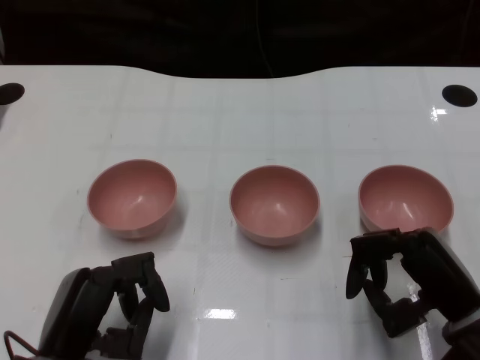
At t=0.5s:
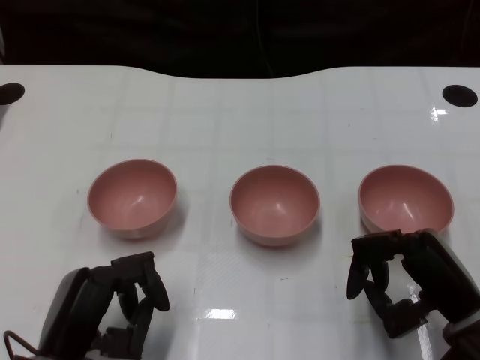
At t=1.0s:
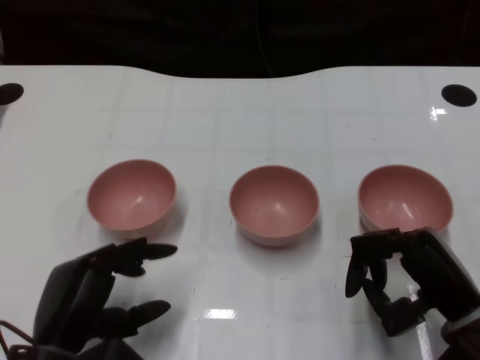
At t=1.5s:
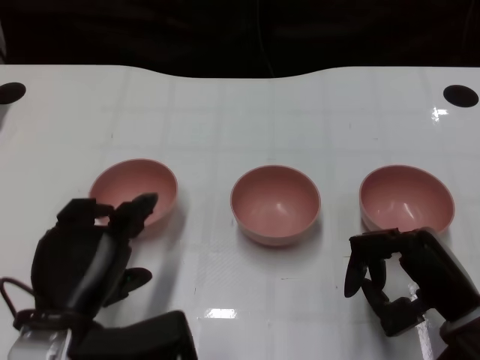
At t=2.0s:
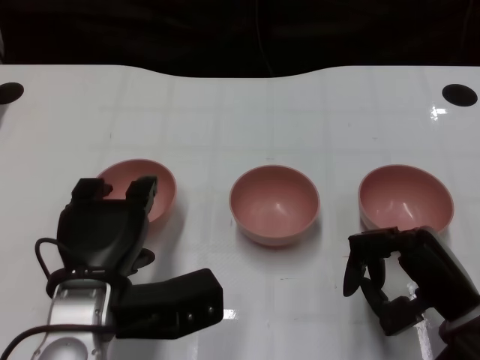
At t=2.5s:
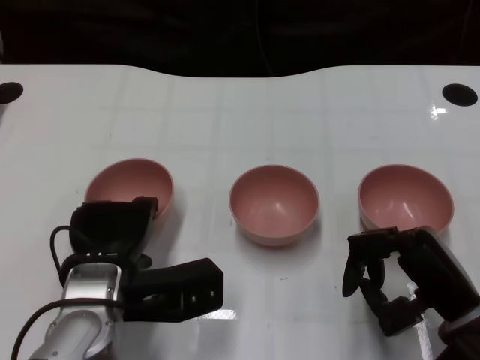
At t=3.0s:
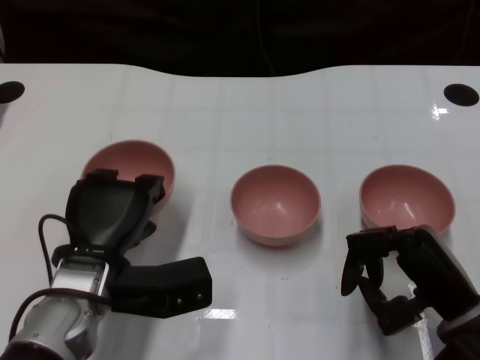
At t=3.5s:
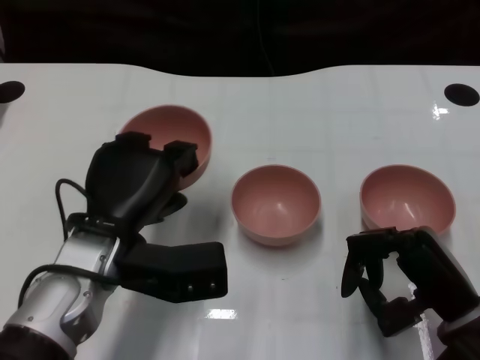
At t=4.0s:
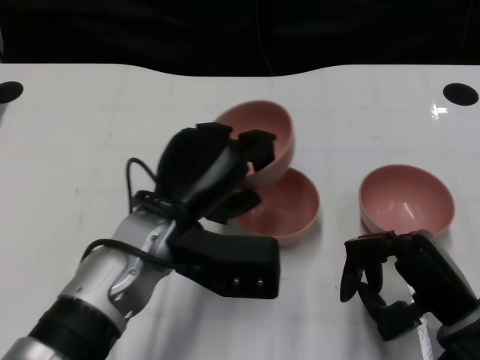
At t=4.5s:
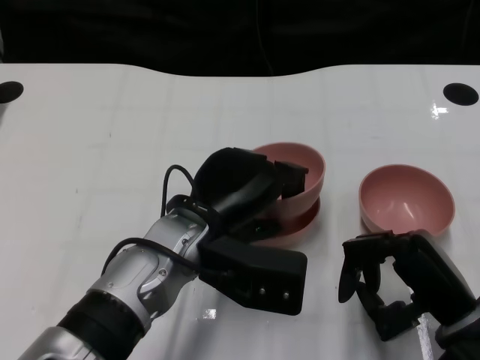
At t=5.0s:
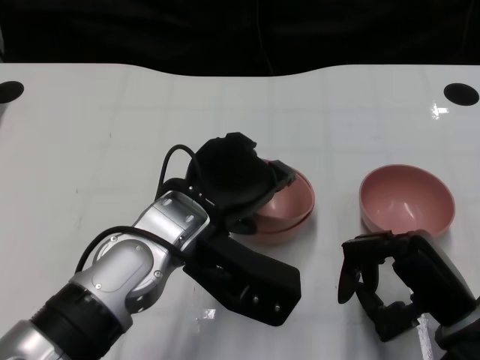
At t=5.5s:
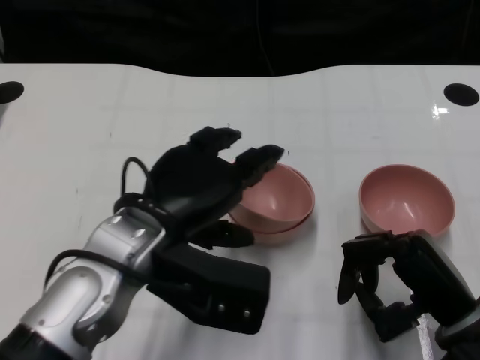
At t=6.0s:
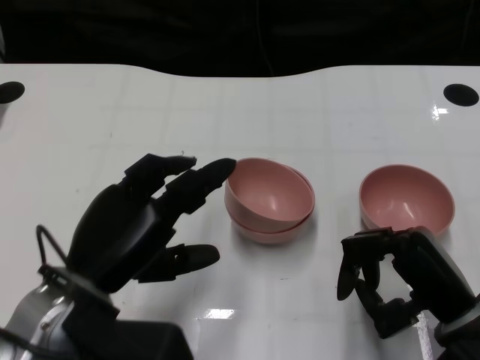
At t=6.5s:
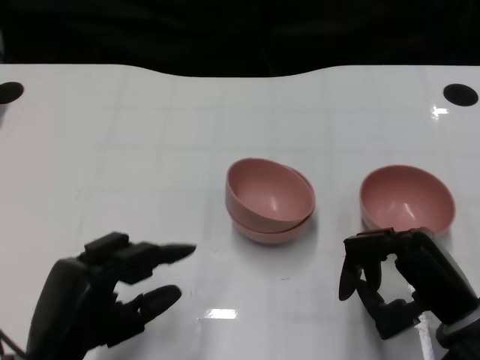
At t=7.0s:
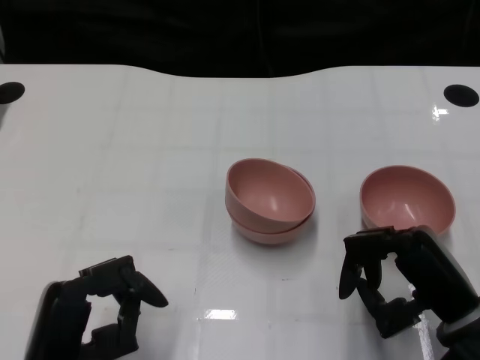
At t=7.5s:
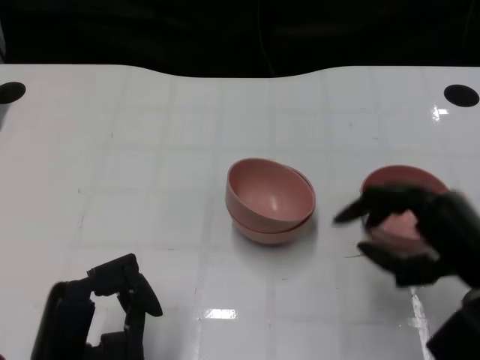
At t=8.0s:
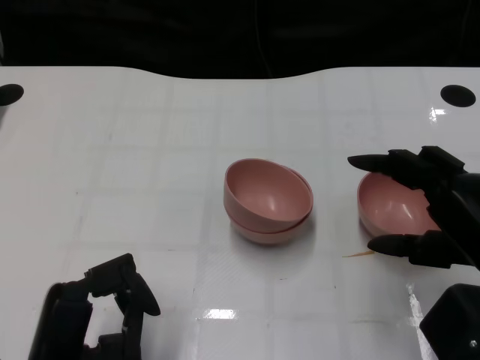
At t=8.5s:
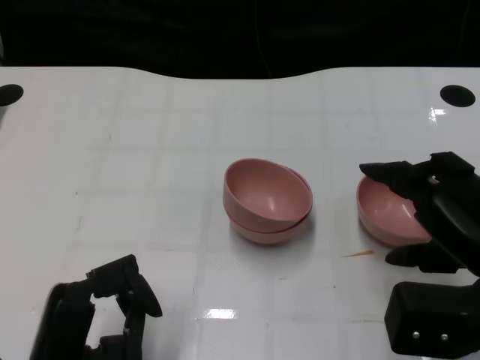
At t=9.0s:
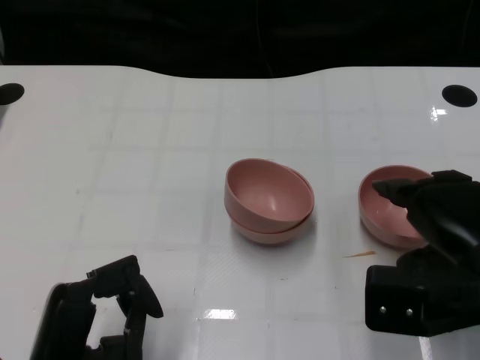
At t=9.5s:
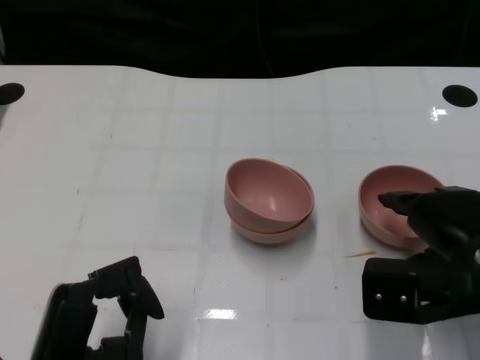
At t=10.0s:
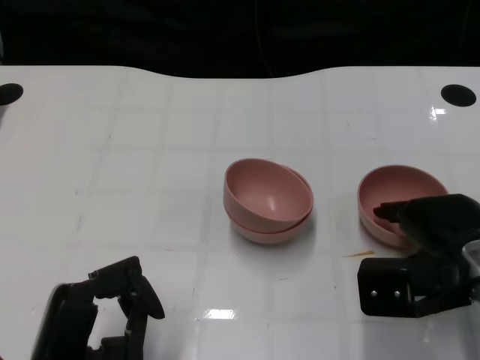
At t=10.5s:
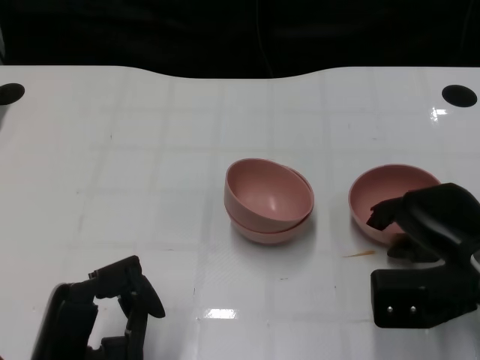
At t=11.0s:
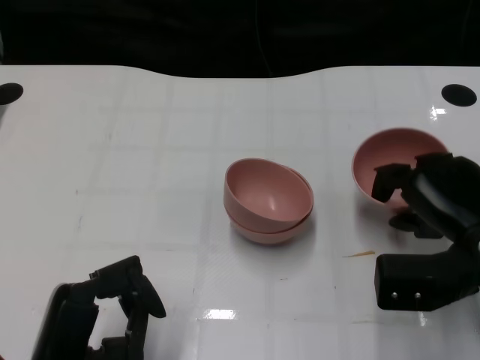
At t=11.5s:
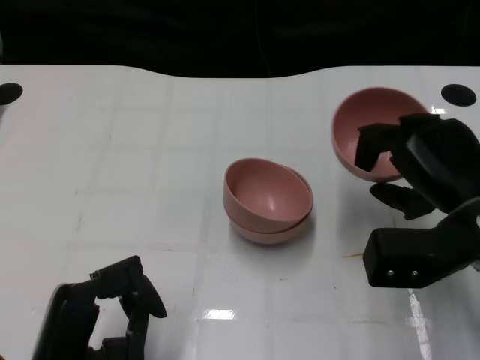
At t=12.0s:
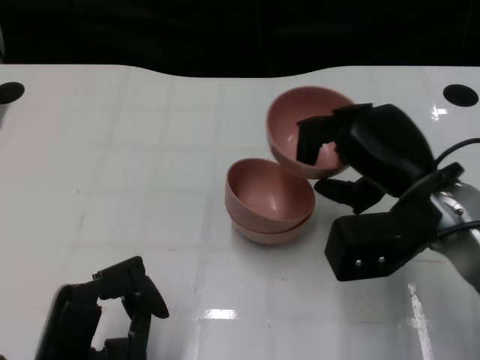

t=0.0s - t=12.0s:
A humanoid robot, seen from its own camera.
Task of the whole recording: Pick up the bowl on one side of the table and place it on top of the middle bowl, then pick up the bowl on the other side of the table and place it on top of the middle bowls.
Step, t=1.0s - t=2.5s: Grasp the bowl on the left with the left gripper.
Step, t=3.0s - t=5.5s: Place the bowl on the left onto the bowl in the middle with left gripper.
Step, t=6.0s - t=10.5s: Grasp the bowl on the right with the right gripper.
t=2.0s - t=4.0s: The left hand heads to the right and forward, covering about 10 cm.
t=4.0s - t=6.0s: The left hand heads to the left and backward, covering approximately 10 cm.
t=6.0s - t=8.0s: The left hand travels downward and backward by roughly 10 cm; the right hand goes some 5 cm upward.
t=8.0s - t=10.0s: The right hand travels forward by approximately 5 cm.
t=10.0s - t=12.0s: The right hand shifts by some 5 cm.

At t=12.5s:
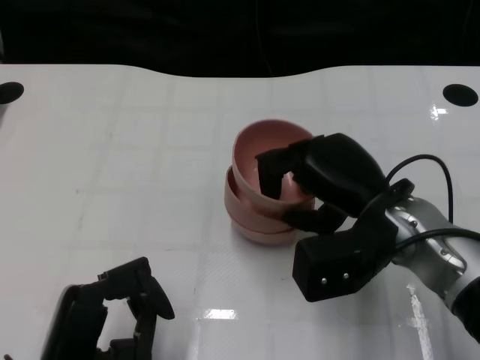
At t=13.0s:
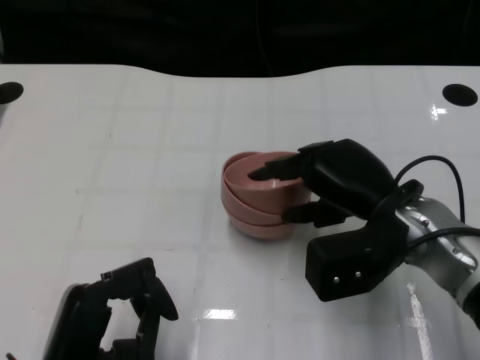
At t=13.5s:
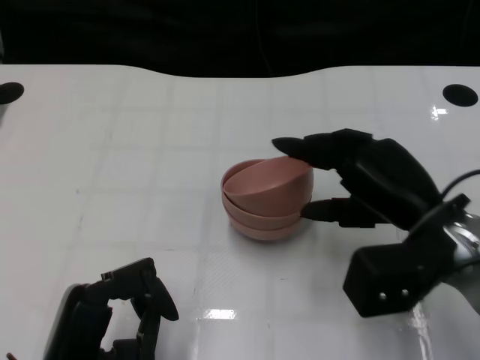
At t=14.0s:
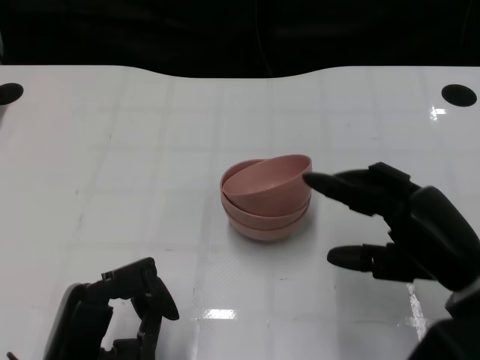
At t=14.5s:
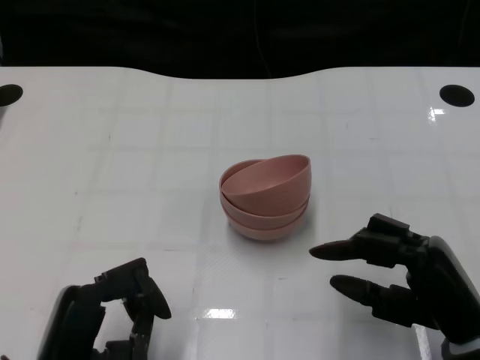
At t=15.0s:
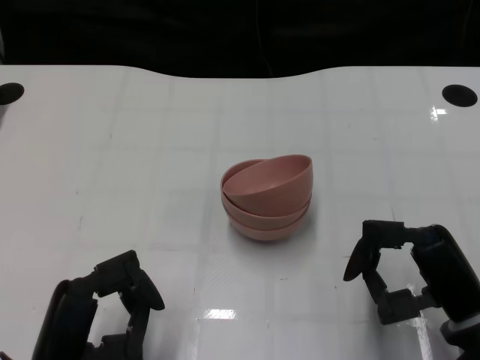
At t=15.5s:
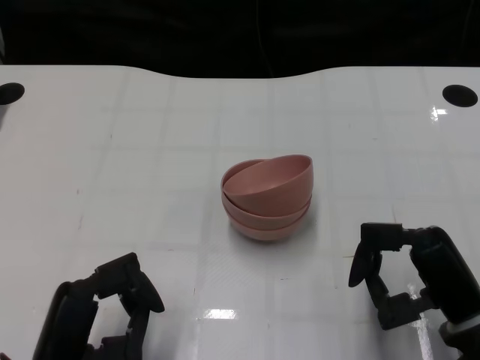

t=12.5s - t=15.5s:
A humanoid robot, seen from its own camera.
Task of the whole recording: Pick up the bowl on one side of the table and place it on top of the middle bowl, then pick up the bowl on the other side of the table and place it on top of the middle bowls.
t=12.5s - t=14.0s: The right hand goes some 10 cm to the right and backward.
t=14.0s - t=15.5s: The right hand goes roughly 5 cm downward.

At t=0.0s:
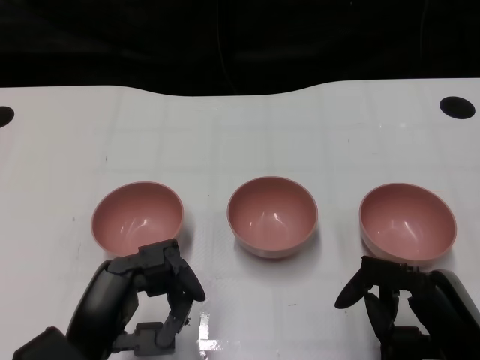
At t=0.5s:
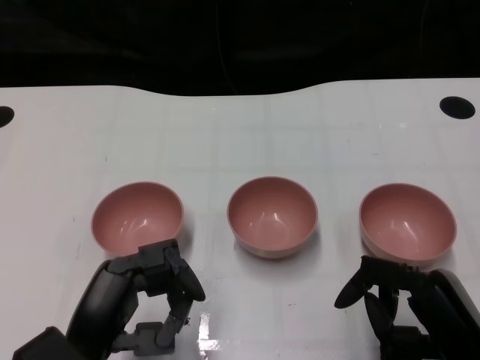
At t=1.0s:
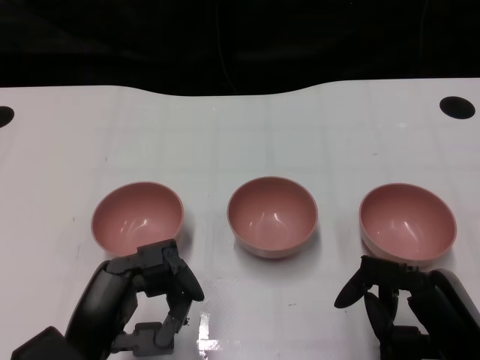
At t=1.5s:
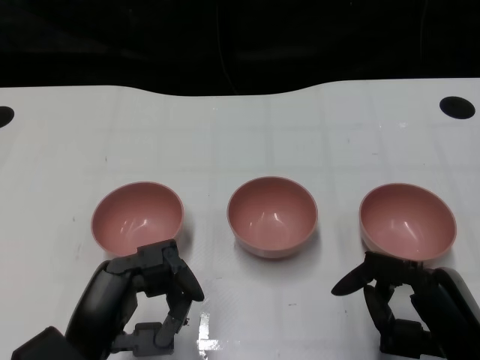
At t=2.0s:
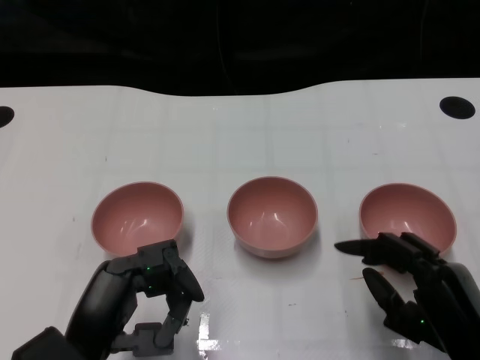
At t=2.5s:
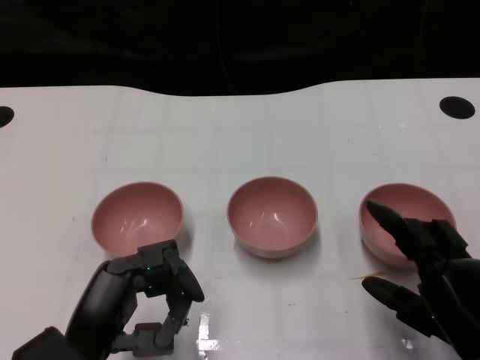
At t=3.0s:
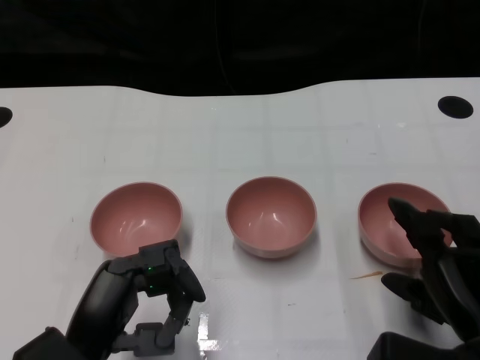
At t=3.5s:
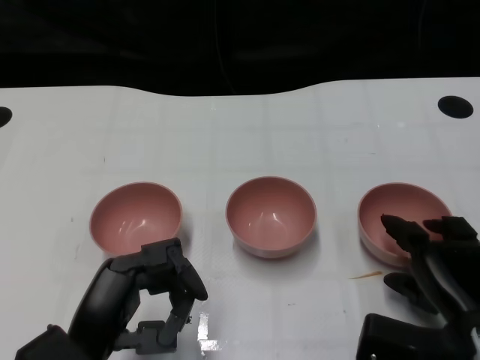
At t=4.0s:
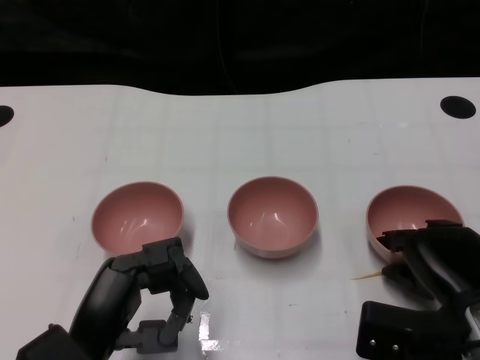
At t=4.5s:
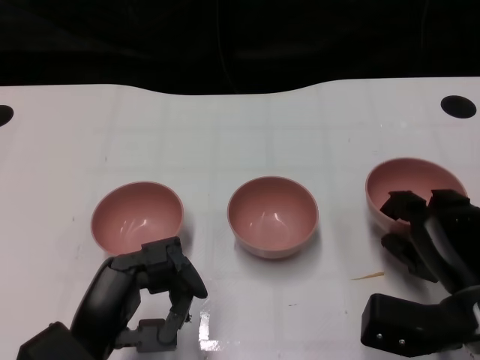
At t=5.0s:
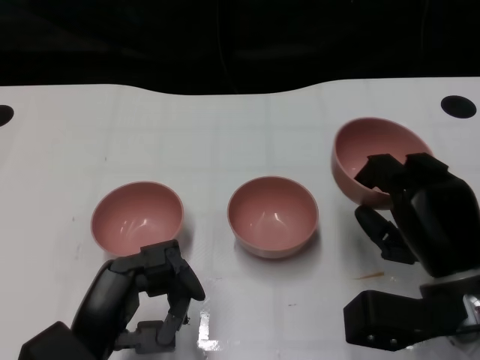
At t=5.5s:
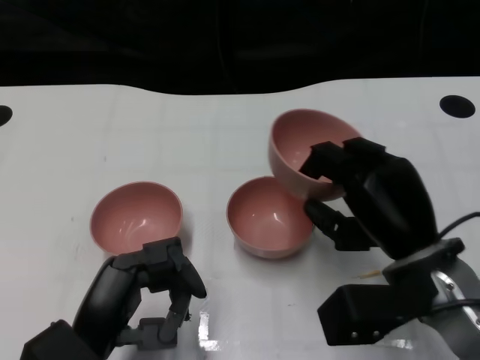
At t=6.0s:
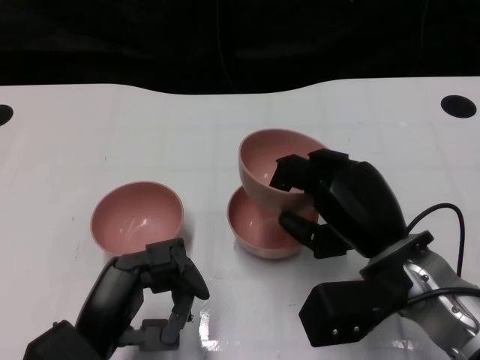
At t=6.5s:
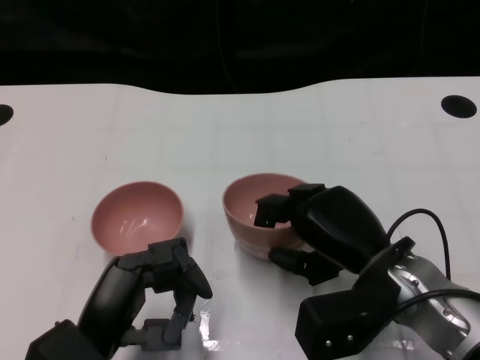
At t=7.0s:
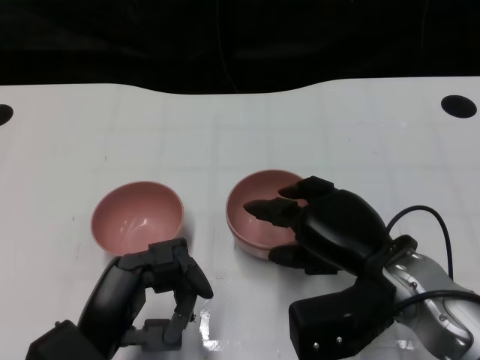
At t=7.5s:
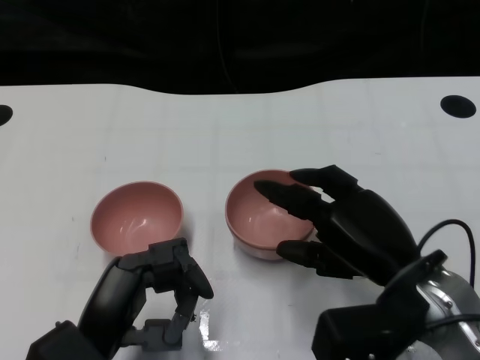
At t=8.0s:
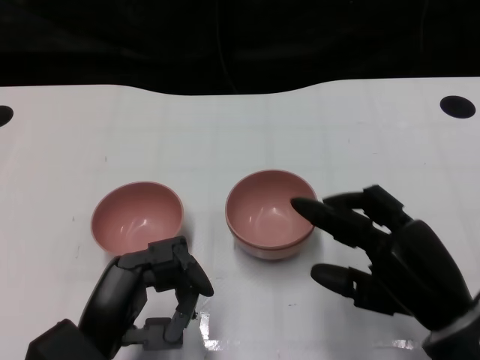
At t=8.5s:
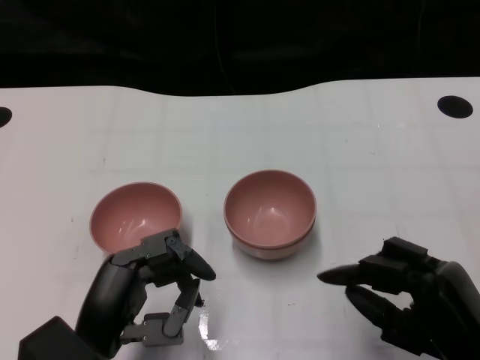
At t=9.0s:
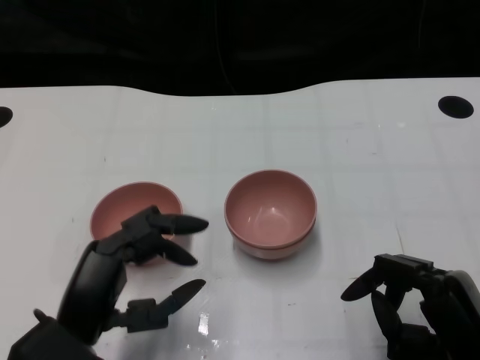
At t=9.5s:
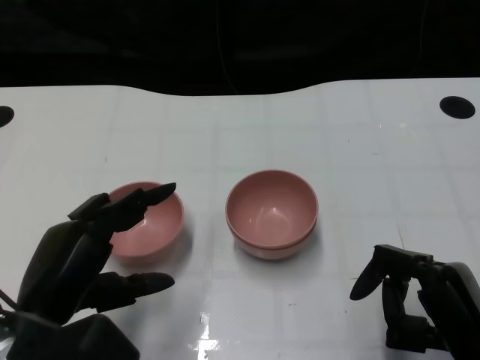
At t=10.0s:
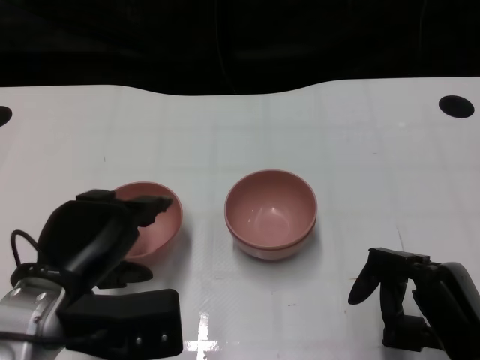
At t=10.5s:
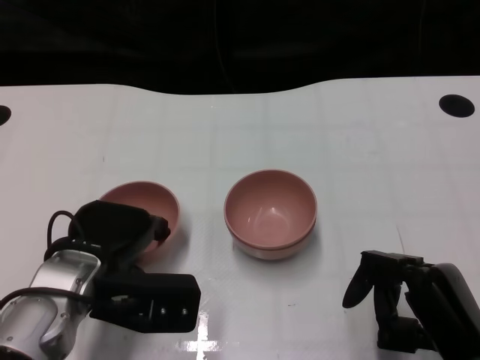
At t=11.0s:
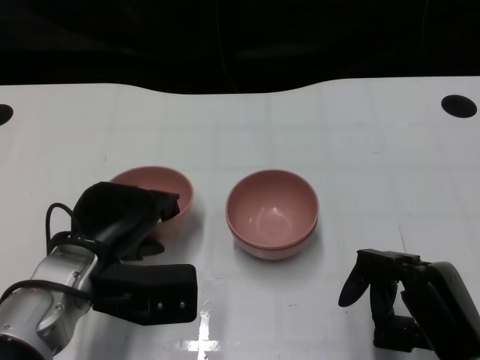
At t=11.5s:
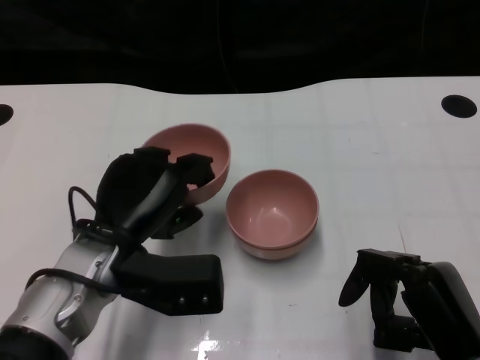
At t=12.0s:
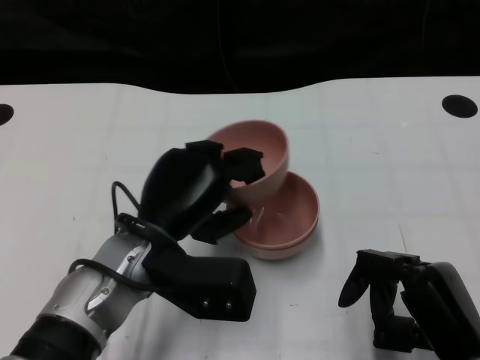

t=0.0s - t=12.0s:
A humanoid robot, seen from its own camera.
Task of the whole recording: Pick up the bowl on one side of the table and place it on top of the middle bowl, then pick up the bowl on the other side of the table and place it on top of the middle bowls.
Step, t=1.5s - t=4.0s: Grasp the bowl on the right with the right gripper.
Step, t=4.5s - t=7.5s: Place the bowl on the right onto the bowl in the middle with right gripper.
Step, t=8.0s - t=10.5s: Grasp the bowl on the left with the left gripper.
t=2.0s - t=4.0s: The right hand is displaced forward by about 5 cm.
t=4.0s - t=6.0s: The right hand goes about 5 cm to the left.
t=6.0s - t=8.0s: The right hand is displaced backward by about 5 cm.
t=8.0s - t=10.0s: The left hand changes place by approximately 5 cm. The right hand ends up approximately 5 cm from where it was.
t=10.0s - t=12.0s: The left hand is displaced to the right and forward by about 10 cm.
